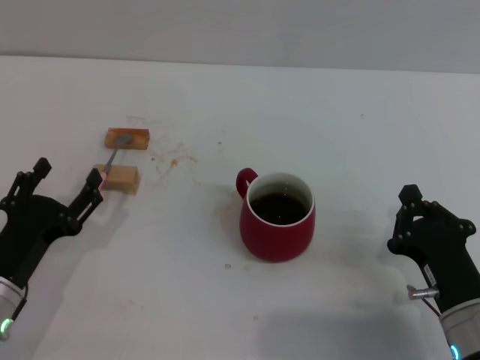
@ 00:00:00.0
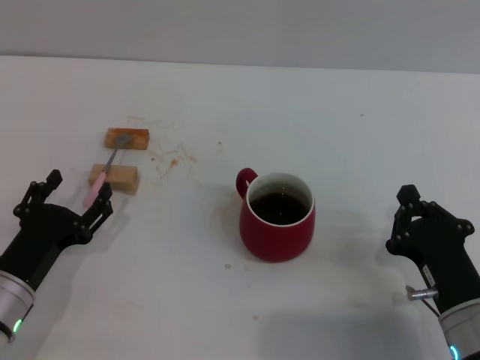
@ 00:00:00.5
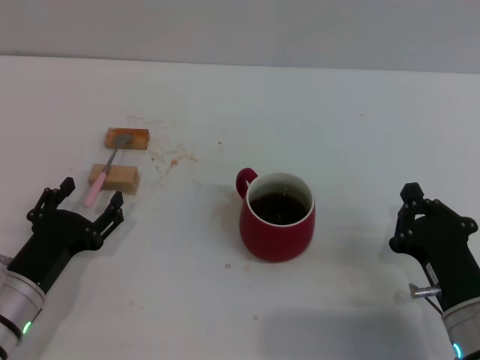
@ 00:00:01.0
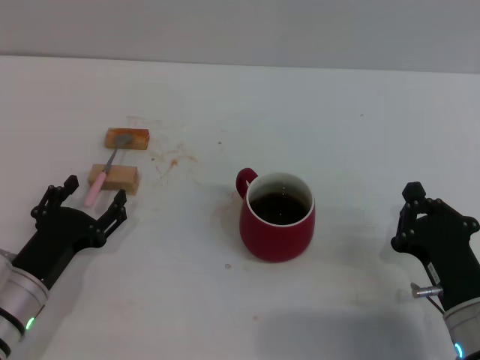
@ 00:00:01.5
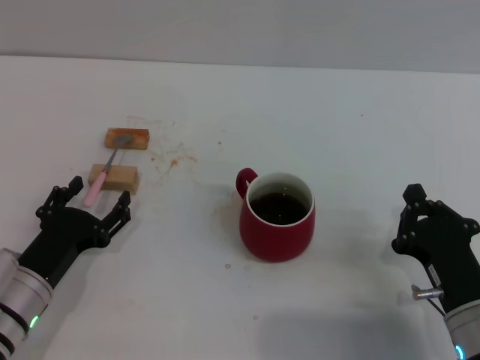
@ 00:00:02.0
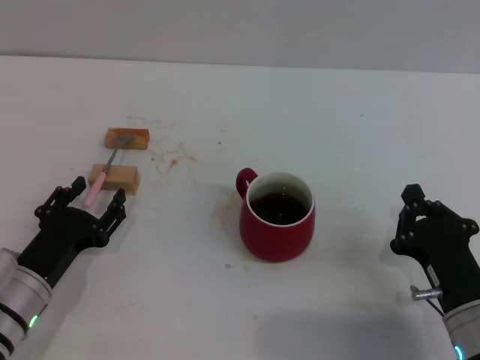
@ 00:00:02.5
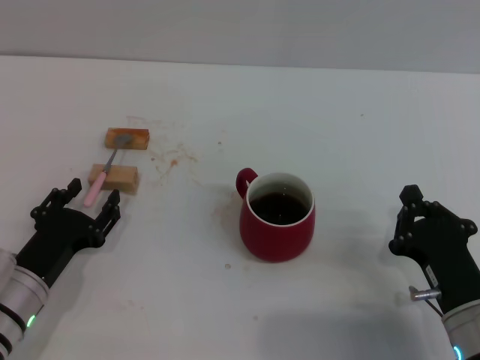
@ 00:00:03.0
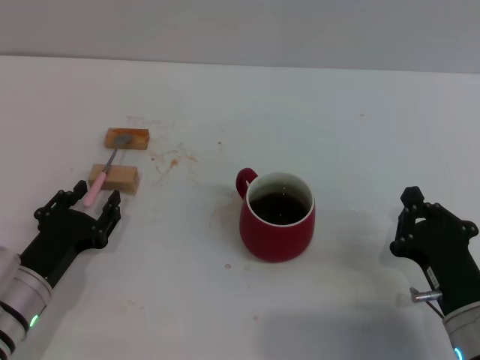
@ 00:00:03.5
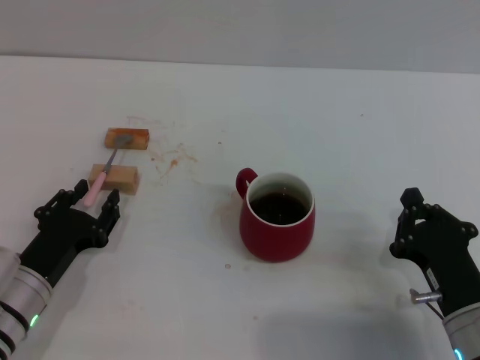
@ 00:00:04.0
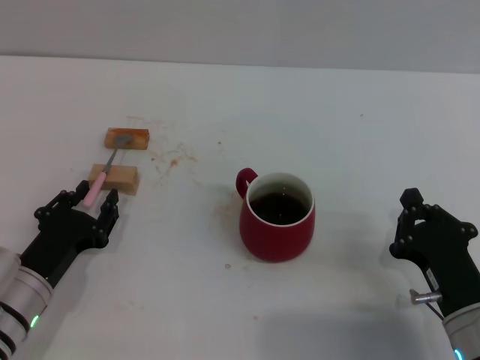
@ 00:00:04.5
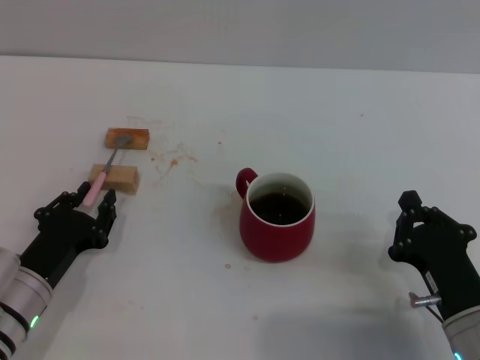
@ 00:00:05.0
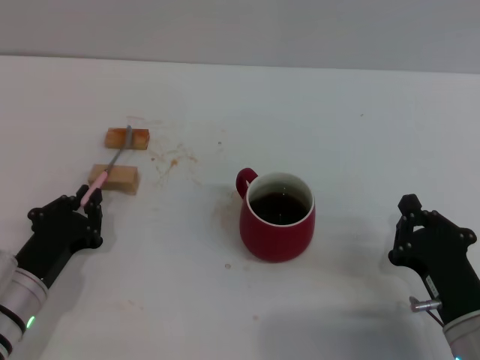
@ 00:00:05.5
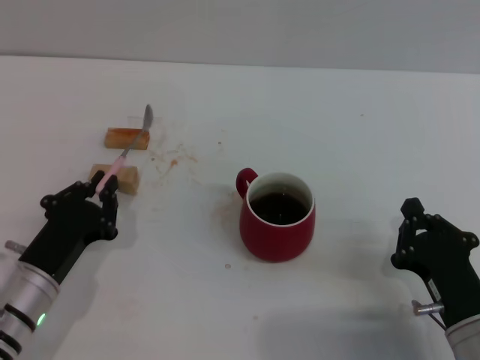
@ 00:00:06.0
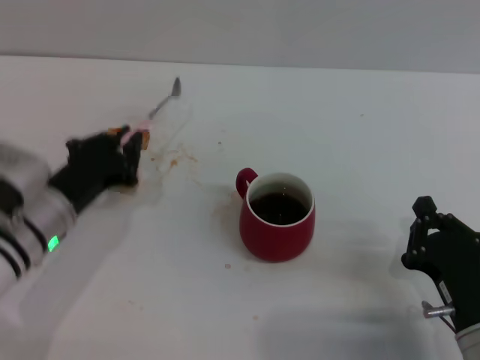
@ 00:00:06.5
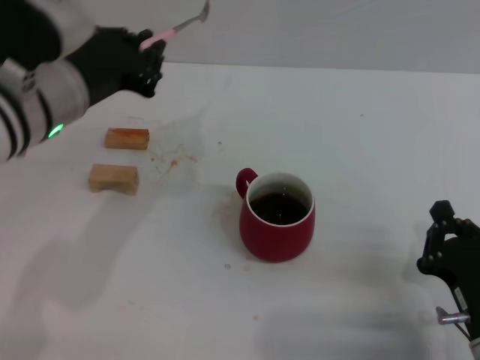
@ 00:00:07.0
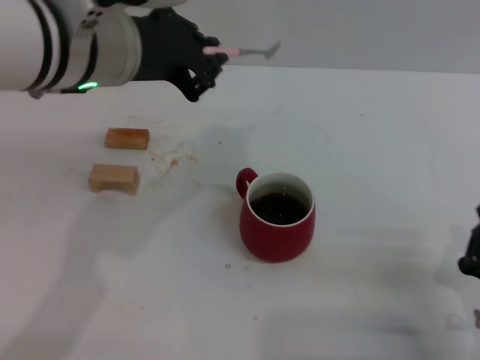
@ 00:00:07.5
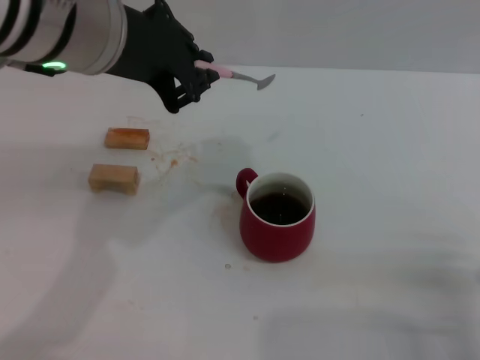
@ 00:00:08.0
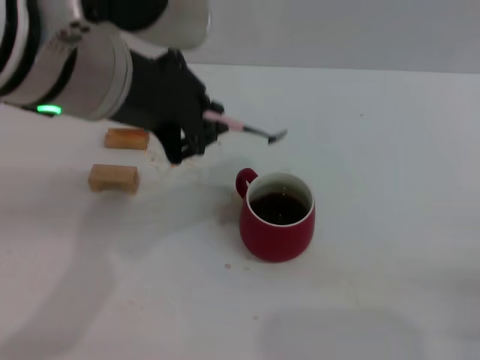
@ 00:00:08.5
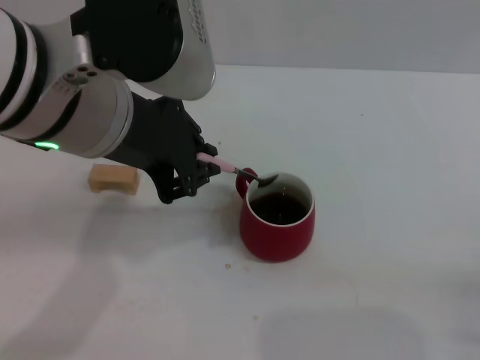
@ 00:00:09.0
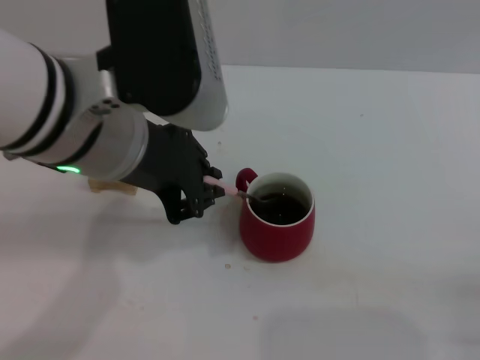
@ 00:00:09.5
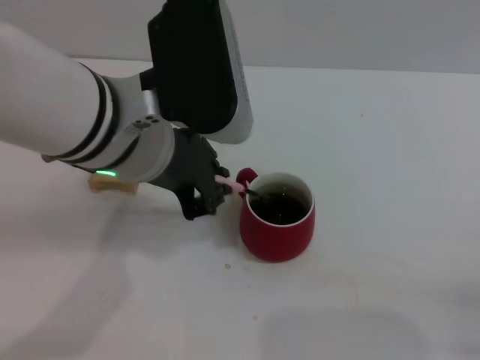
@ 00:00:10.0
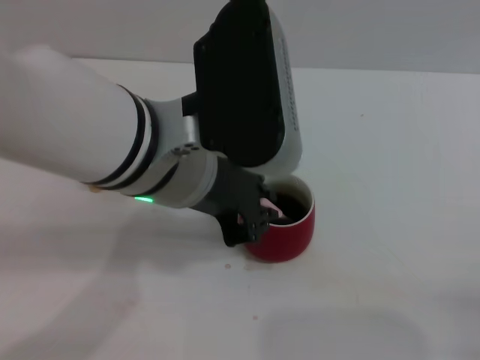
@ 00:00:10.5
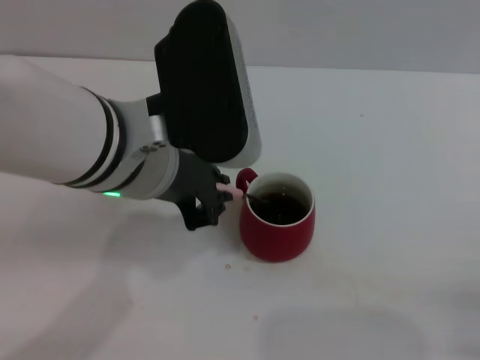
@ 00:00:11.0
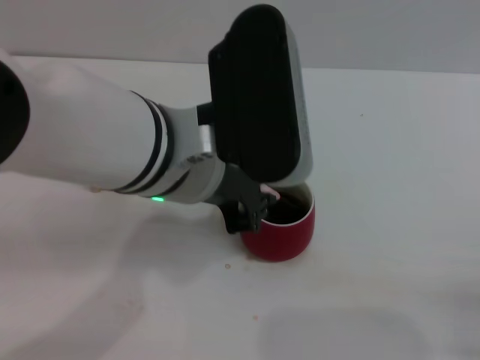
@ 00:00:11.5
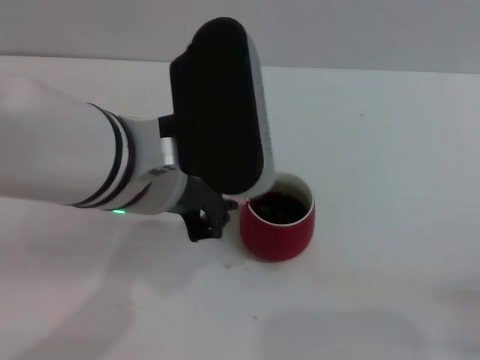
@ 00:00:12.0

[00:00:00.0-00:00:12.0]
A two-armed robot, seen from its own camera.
Task of the whole recording: Move the red cup to the center, lift the pink spoon, stir it three times in the cup, and put the spoon into the cup.
Step, 00:00:00.0 to 00:00:05.5: Grasp the spoon with left gripper.
00:00:00.0 to 00:00:02.0: The grippers stay close to where they were, moving slightly.
00:00:02.0 to 00:00:04.0: The left gripper closes.
00:00:04.0 to 00:00:06.0: The left gripper closes.
00:00:06.0 to 00:00:08.0: The left gripper is displaced upward by about 30 cm. Meanwhile the right gripper shifts about 5 cm to the right.
00:00:08.0 to 00:00:10.0: The left gripper heads downward, covering roughly 5 cm.
00:00:10.0 to 00:00:12.0: The grippers make only small movements.

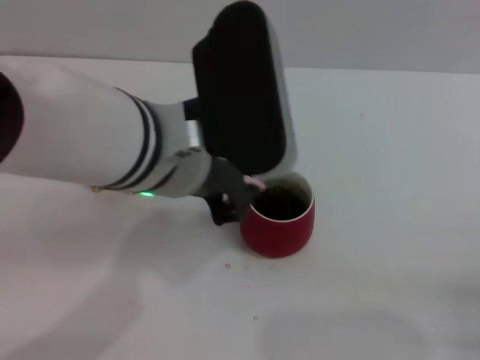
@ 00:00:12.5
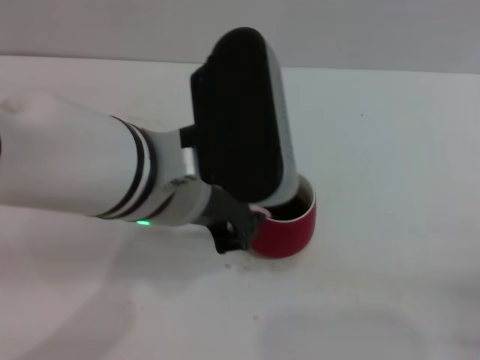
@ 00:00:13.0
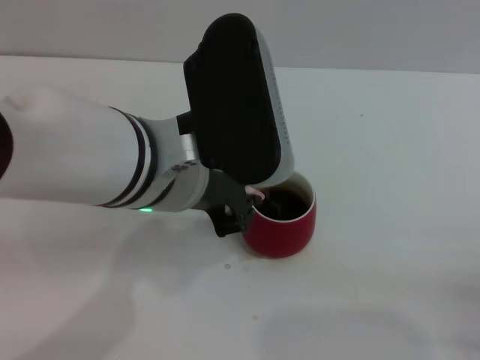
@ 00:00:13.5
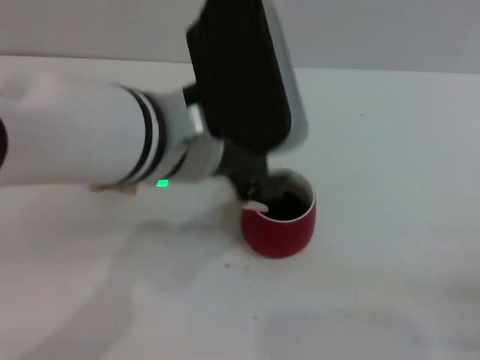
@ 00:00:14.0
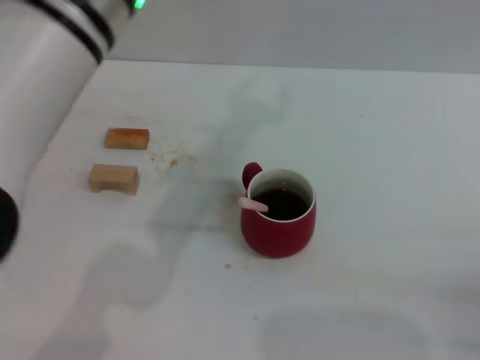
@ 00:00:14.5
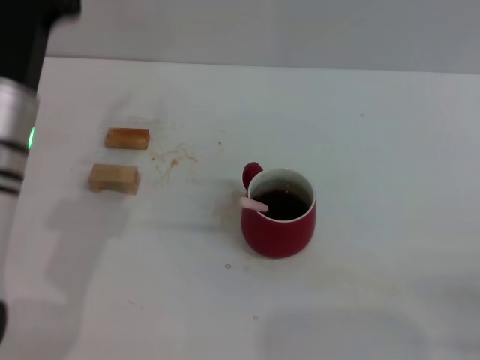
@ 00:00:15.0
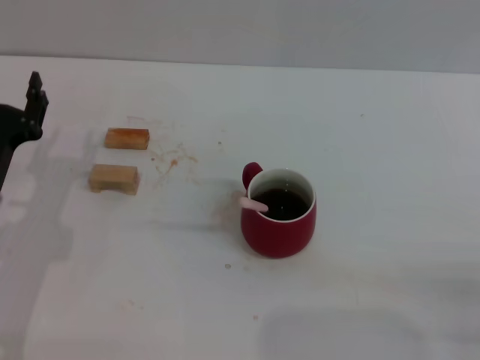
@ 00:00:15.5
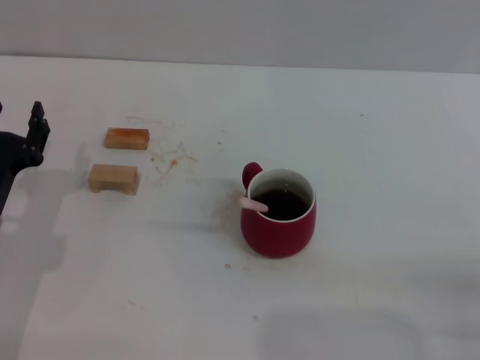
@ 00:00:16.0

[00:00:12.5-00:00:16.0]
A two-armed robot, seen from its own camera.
Task of the whole recording: Move the red cup to the center, lift the pink spoon, stir it three times in the cup, and put the spoon into the cup.
00:00:12.5 to 00:00:14.5: The left gripper moves upward, some 5 cm, and opens.
00:00:14.5 to 00:00:16.0: The left gripper travels downward and to the left by some 30 cm.

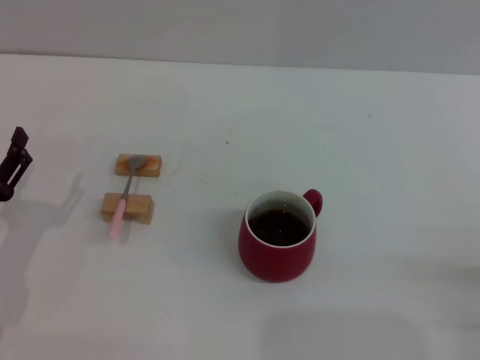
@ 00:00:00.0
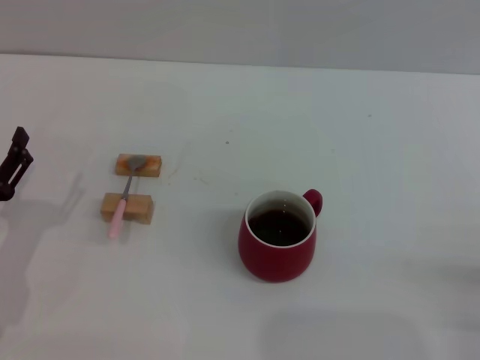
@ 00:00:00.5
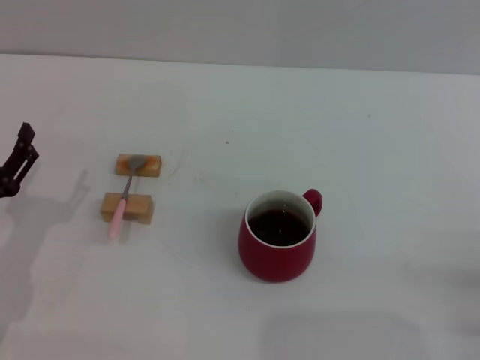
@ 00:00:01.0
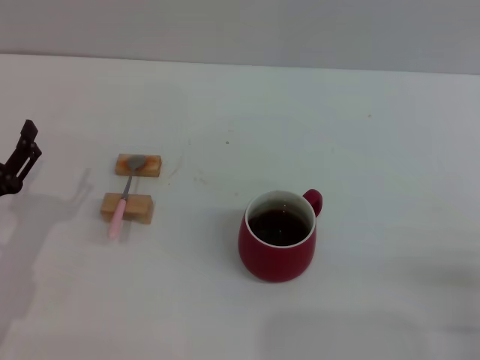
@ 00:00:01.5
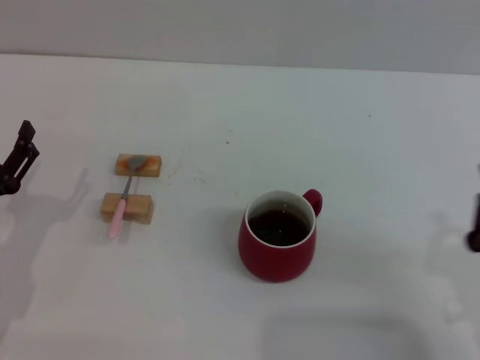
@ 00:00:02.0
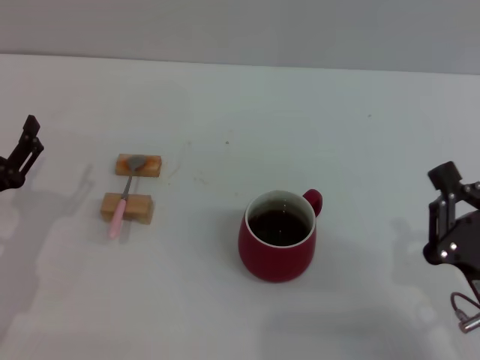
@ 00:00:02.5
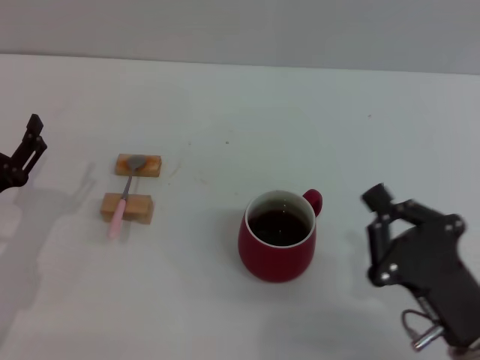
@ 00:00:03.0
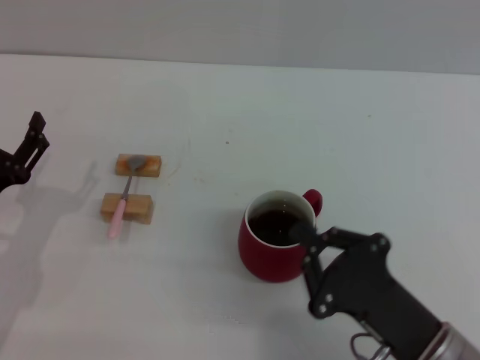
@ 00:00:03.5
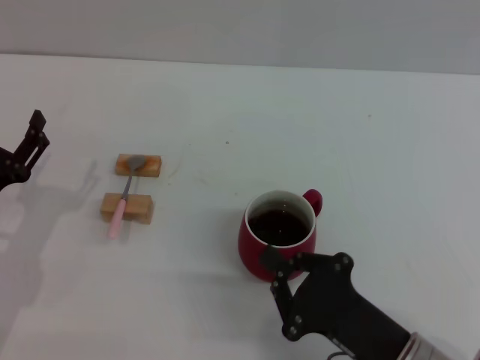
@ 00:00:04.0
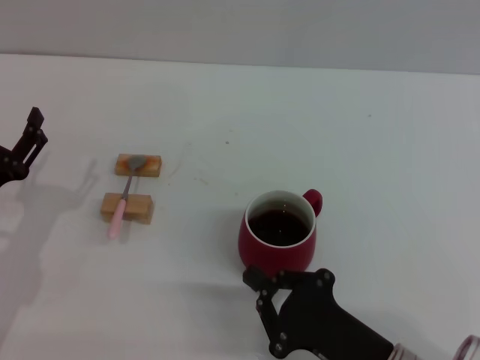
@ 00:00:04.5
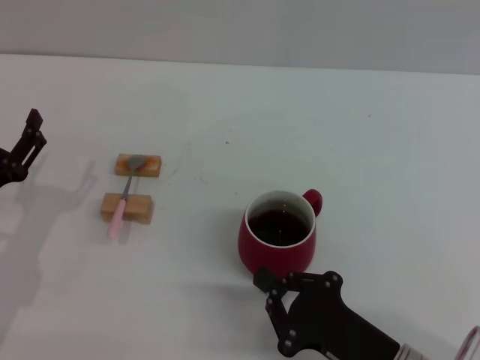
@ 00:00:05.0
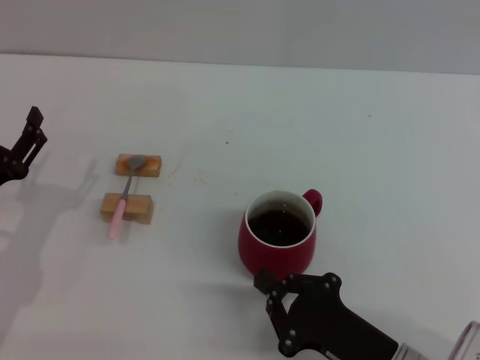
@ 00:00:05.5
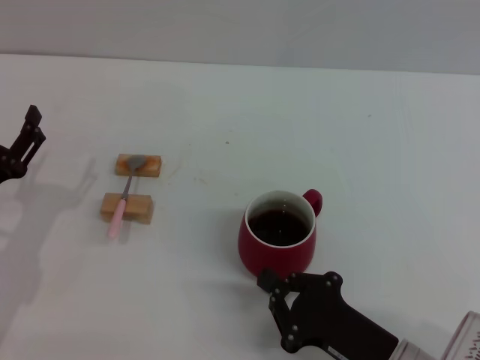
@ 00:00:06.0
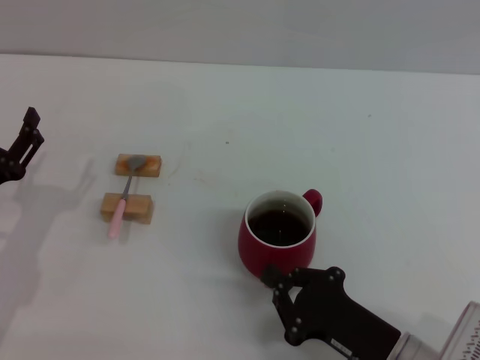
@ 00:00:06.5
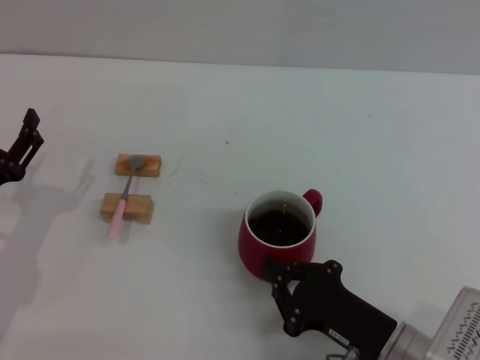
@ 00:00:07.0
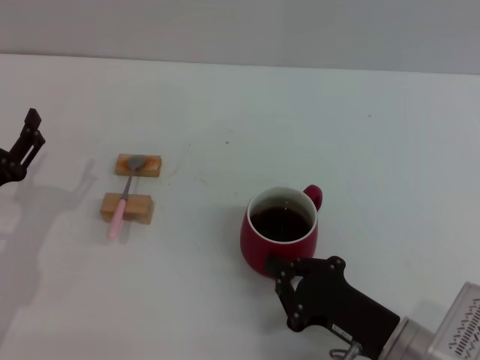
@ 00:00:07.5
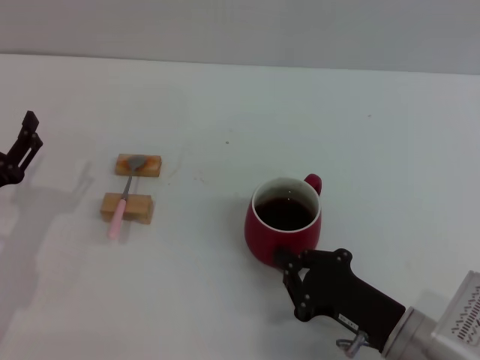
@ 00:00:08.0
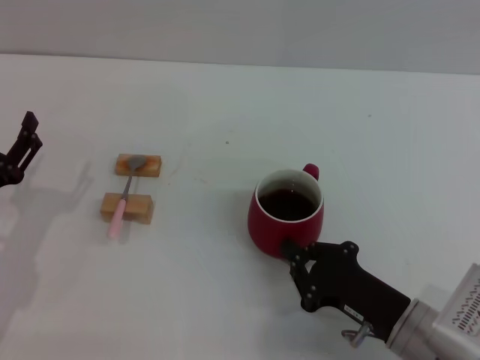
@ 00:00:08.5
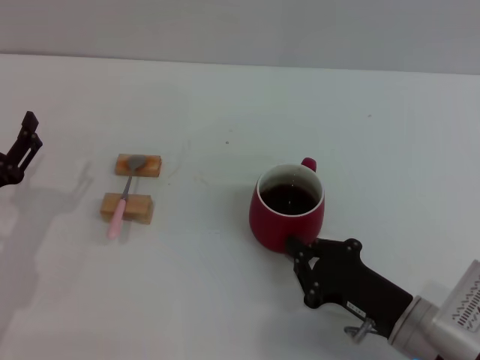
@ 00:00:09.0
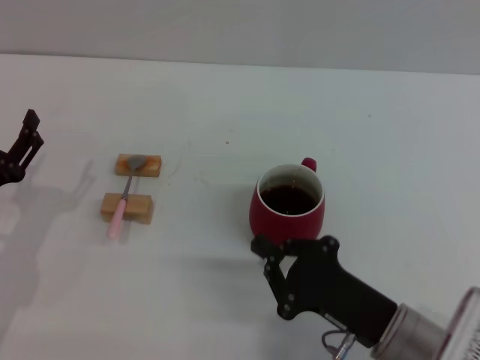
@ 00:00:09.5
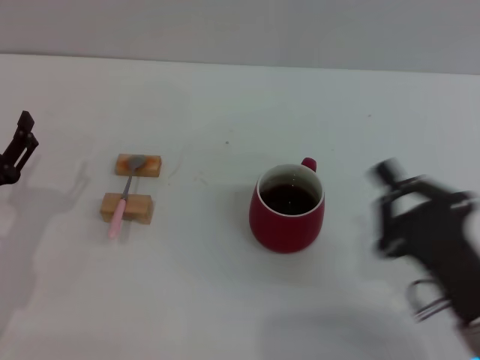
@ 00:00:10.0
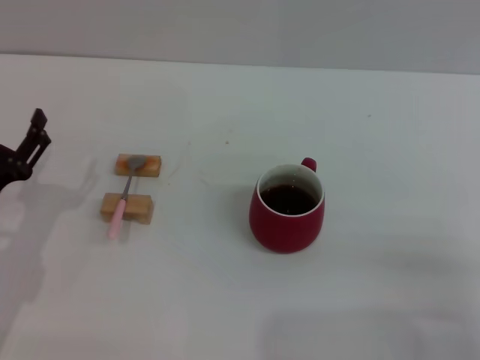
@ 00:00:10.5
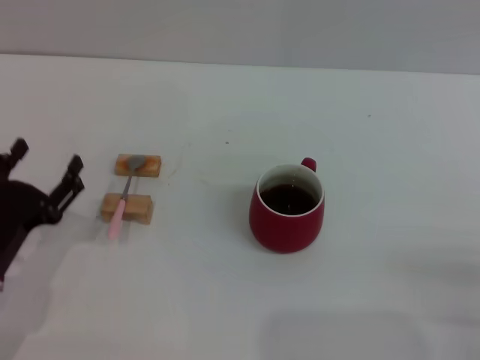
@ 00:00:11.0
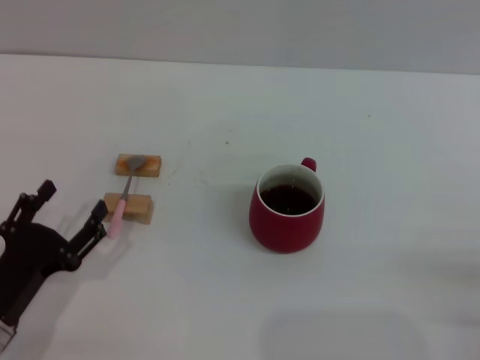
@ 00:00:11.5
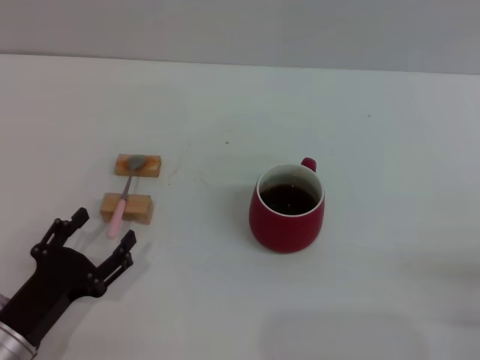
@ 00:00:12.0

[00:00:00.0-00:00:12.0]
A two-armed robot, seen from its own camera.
Task of the whole recording: Move the red cup to the center, lift the pink spoon, stir it three times in the cup, and put the spoon into the cup.
Step, 00:00:00.0 to 00:00:09.5: Move the cup with coffee to the center of view with the right gripper.
00:00:00.0 to 00:00:02.0: The right gripper shifts approximately 5 cm to the left, and closes up.
00:00:02.0 to 00:00:04.0: The right gripper moves to the left, some 10 cm.
00:00:04.0 to 00:00:08.0: The grippers stay close to where they were, moving slightly.
00:00:08.0 to 00:00:10.0: The right gripper shifts by roughly 5 cm.
00:00:10.0 to 00:00:12.0: The left gripper shifts some 5 cm backward, while the right gripper shifts approximately 10 cm to the right.
